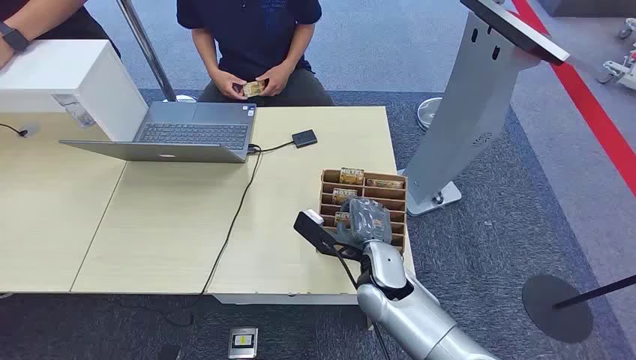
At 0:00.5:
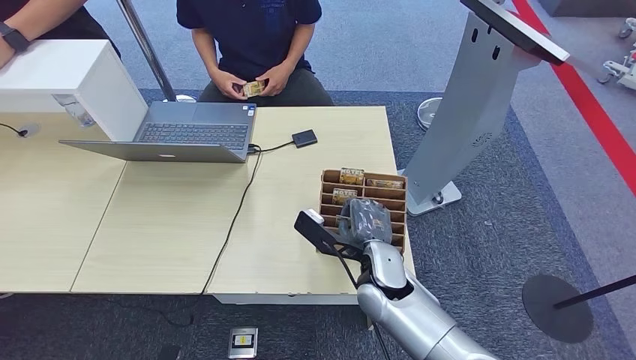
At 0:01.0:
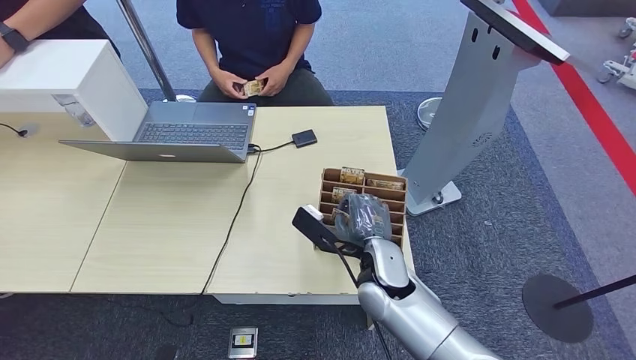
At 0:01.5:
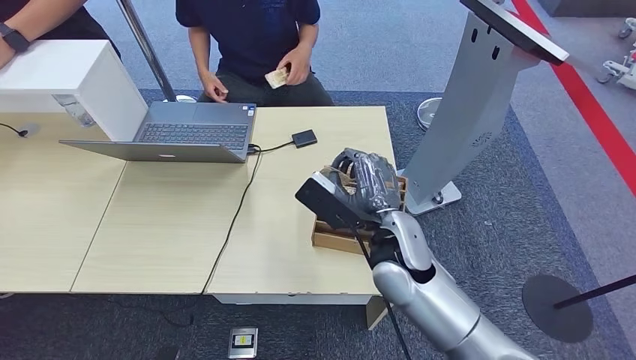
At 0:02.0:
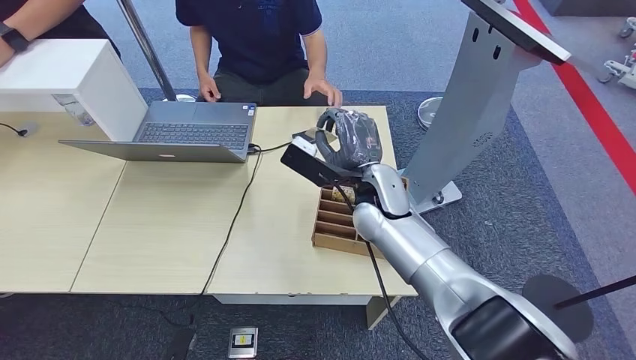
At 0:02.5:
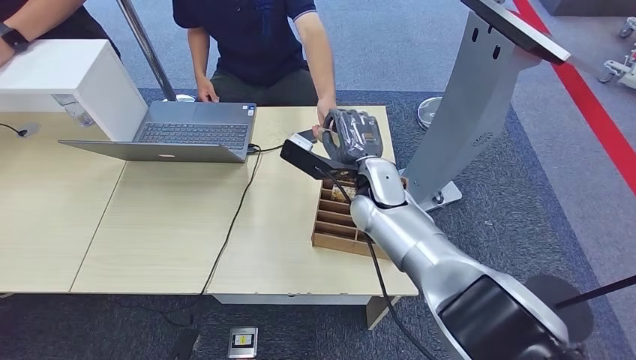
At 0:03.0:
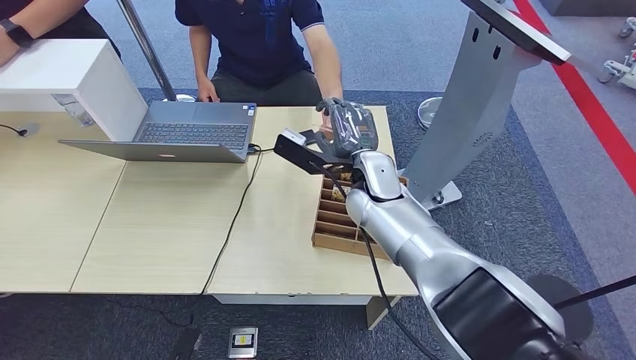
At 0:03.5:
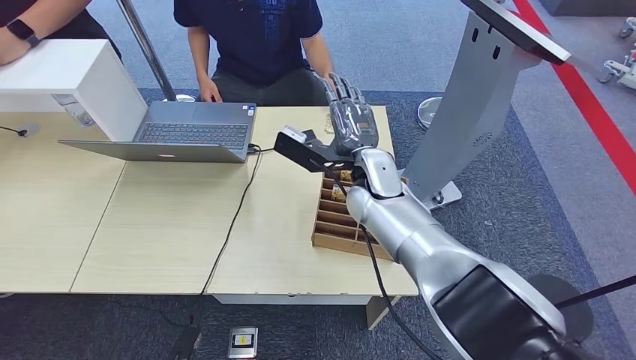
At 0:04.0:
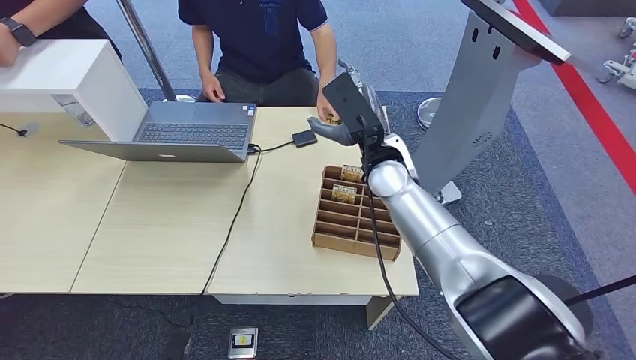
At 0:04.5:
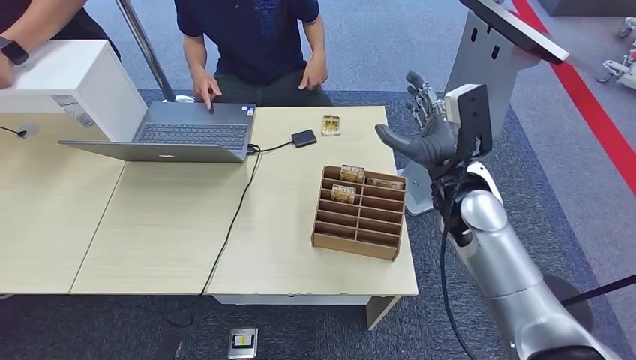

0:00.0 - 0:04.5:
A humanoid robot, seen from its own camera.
Step, 0:00.0 - 0:01.5: Pick up the room card from the card holder.
Step, 0:02.0 - 0:04.5: Hand the room card to the target.
0:02.0 - 0:04.5: The right hand shifts approximately 10 cm to the right.
